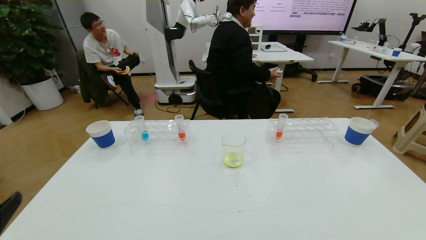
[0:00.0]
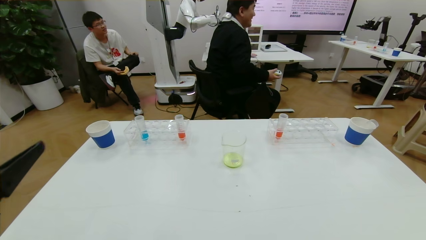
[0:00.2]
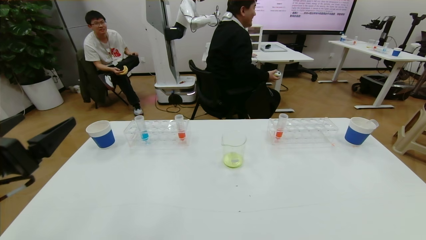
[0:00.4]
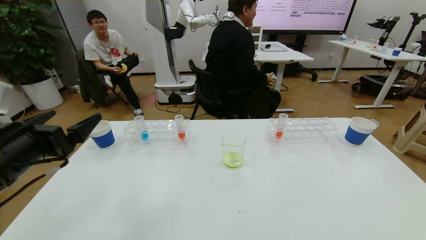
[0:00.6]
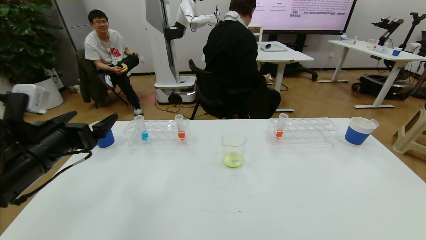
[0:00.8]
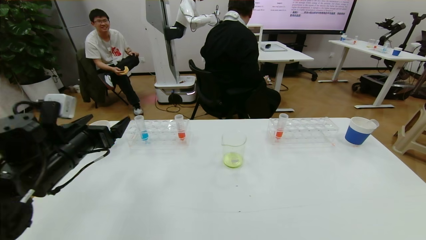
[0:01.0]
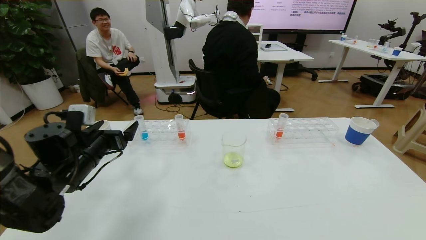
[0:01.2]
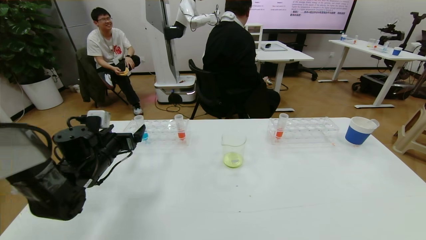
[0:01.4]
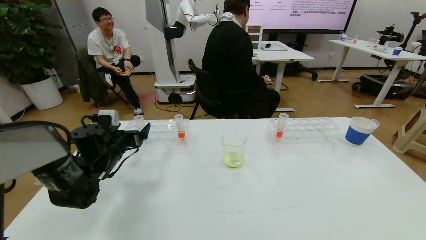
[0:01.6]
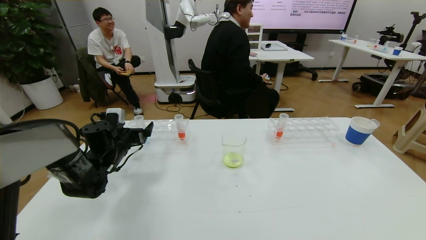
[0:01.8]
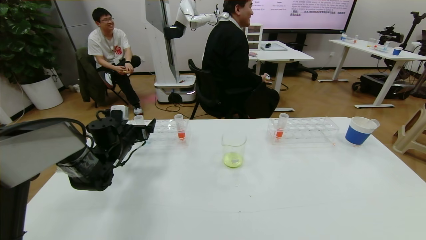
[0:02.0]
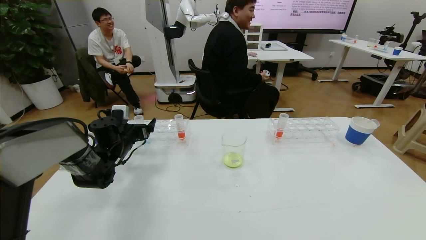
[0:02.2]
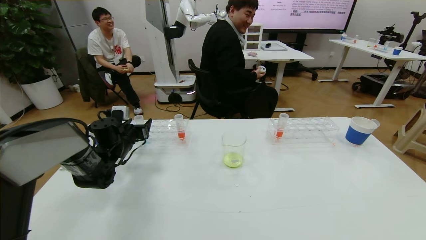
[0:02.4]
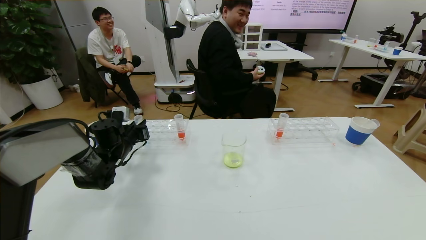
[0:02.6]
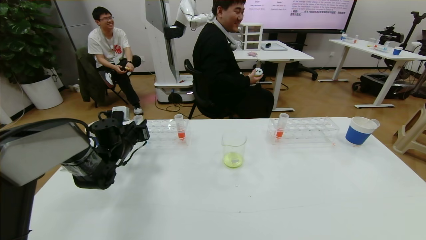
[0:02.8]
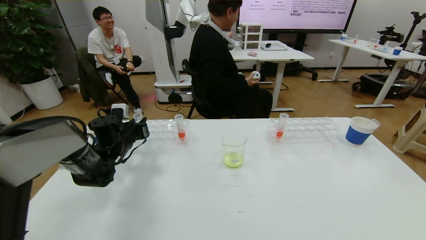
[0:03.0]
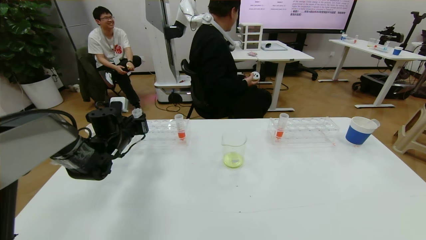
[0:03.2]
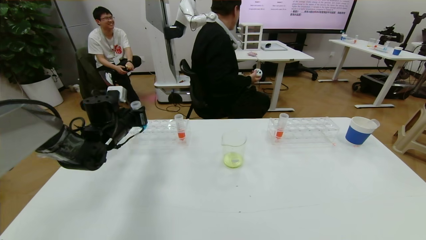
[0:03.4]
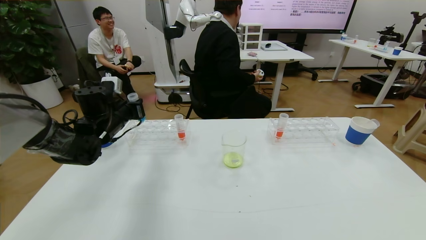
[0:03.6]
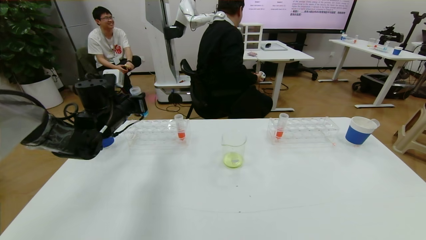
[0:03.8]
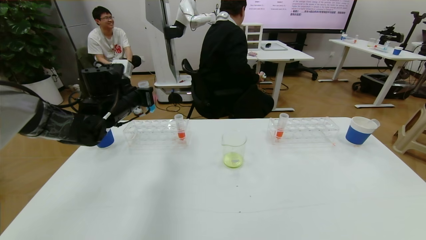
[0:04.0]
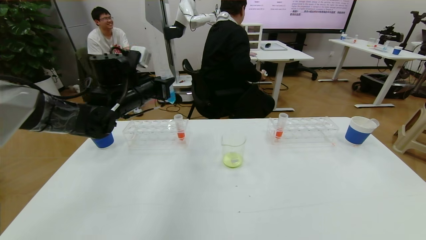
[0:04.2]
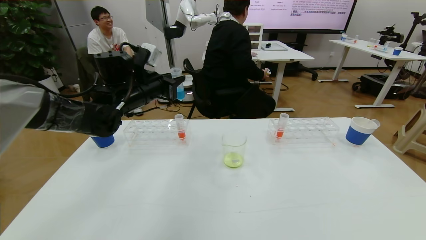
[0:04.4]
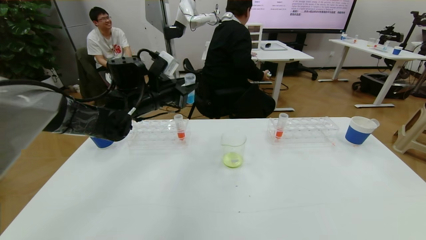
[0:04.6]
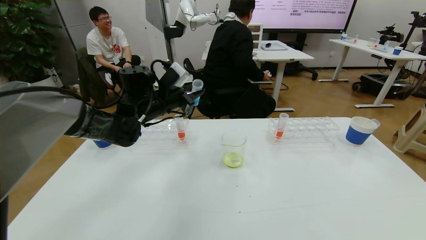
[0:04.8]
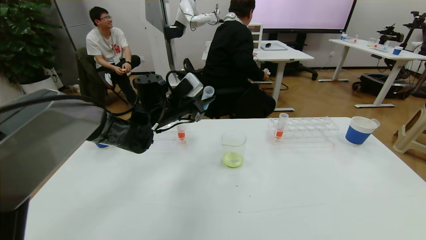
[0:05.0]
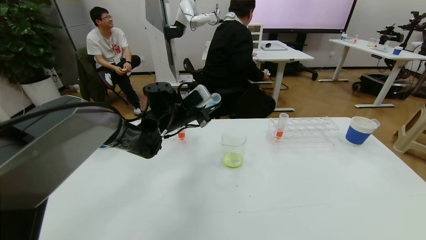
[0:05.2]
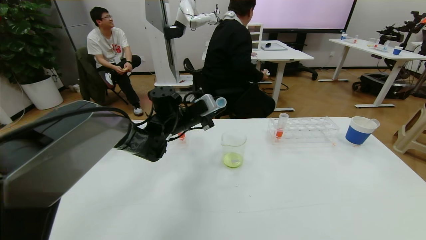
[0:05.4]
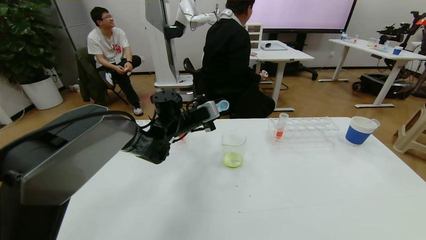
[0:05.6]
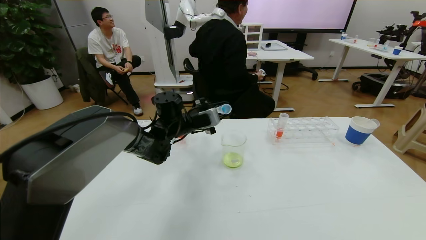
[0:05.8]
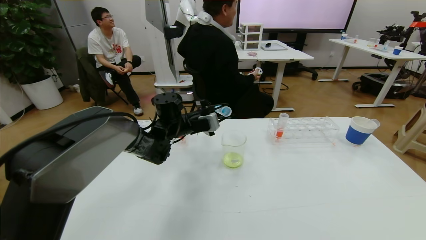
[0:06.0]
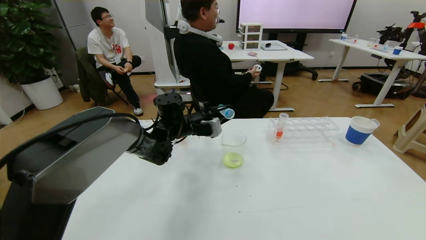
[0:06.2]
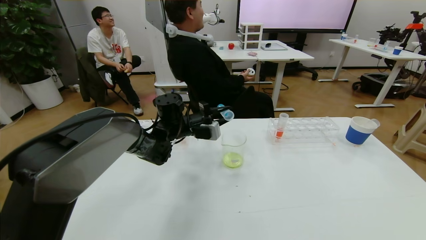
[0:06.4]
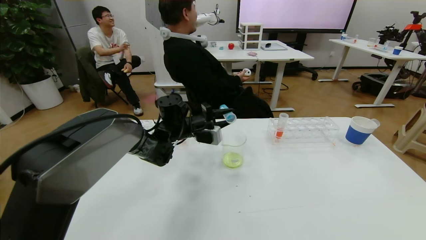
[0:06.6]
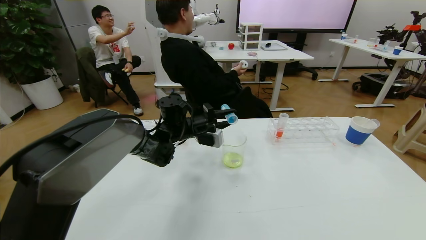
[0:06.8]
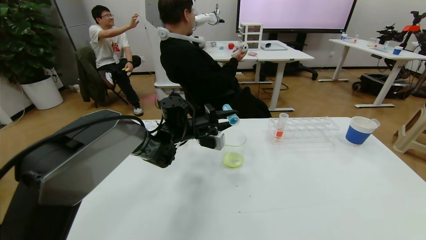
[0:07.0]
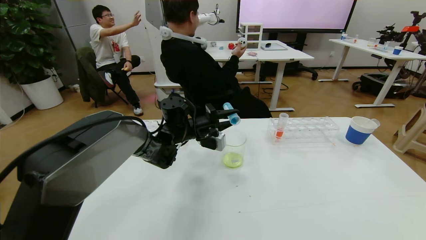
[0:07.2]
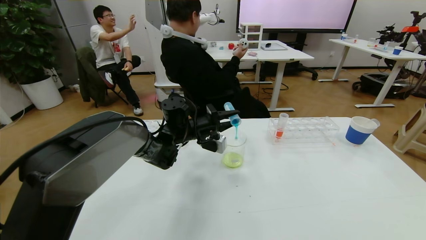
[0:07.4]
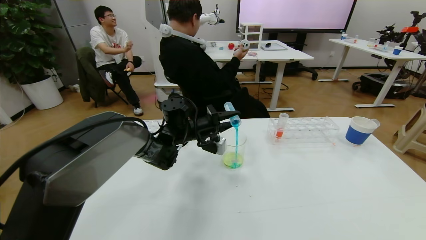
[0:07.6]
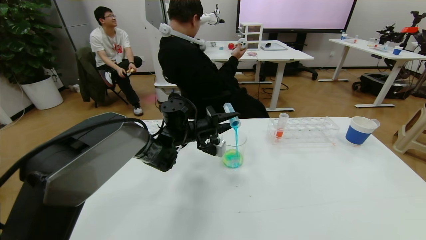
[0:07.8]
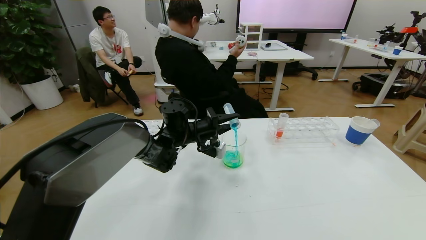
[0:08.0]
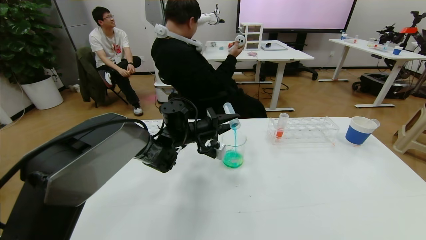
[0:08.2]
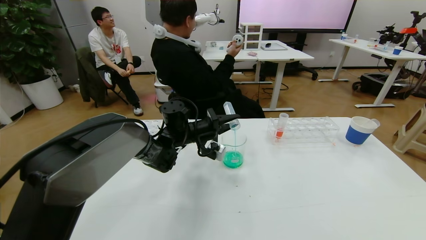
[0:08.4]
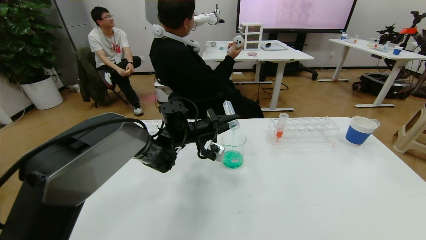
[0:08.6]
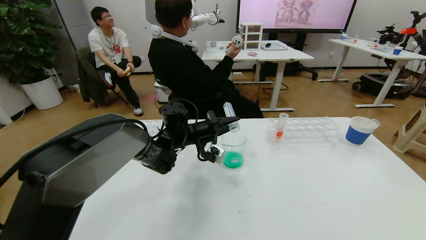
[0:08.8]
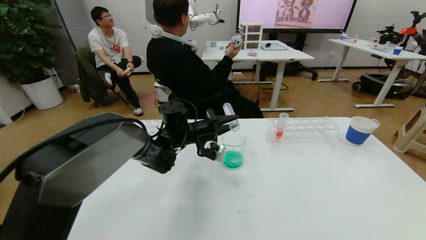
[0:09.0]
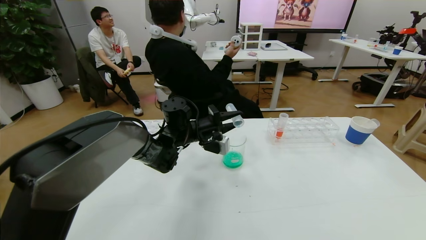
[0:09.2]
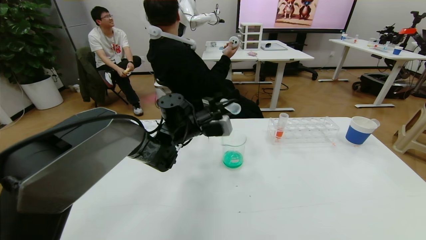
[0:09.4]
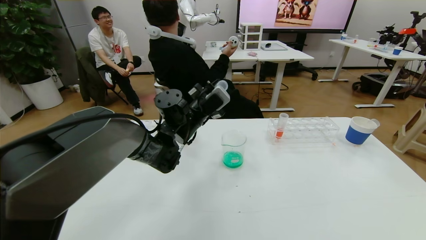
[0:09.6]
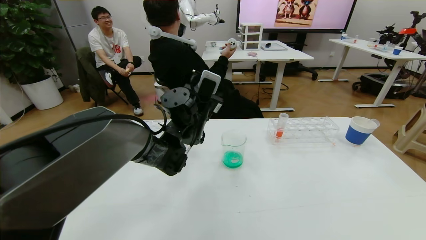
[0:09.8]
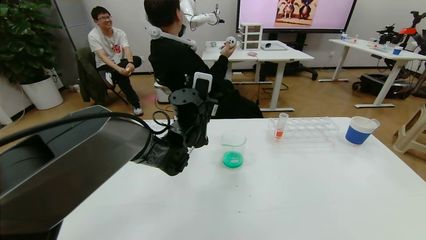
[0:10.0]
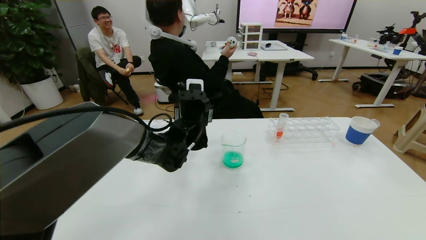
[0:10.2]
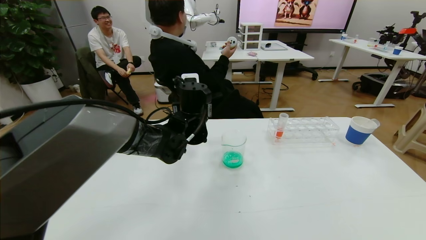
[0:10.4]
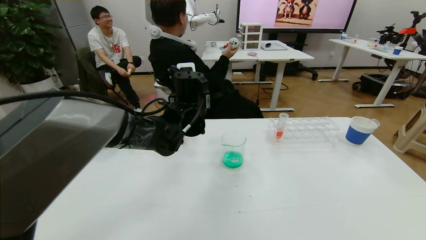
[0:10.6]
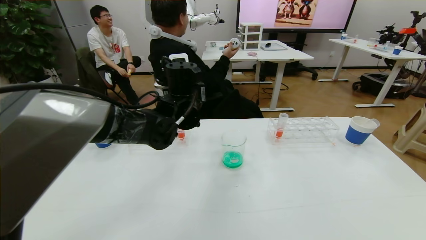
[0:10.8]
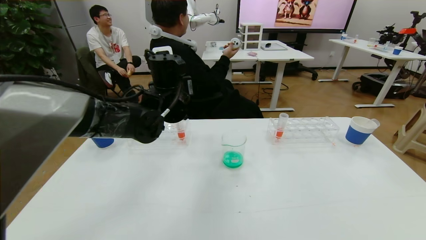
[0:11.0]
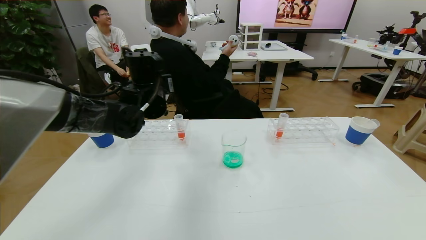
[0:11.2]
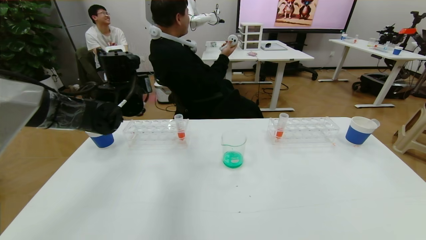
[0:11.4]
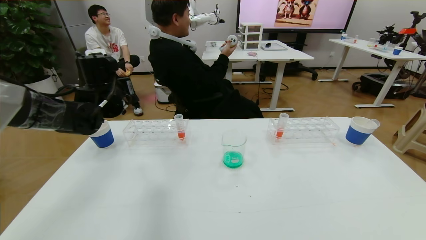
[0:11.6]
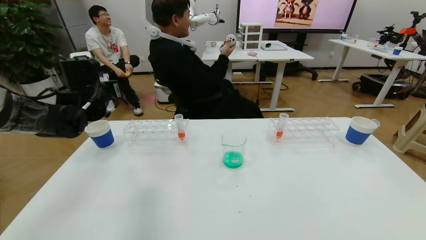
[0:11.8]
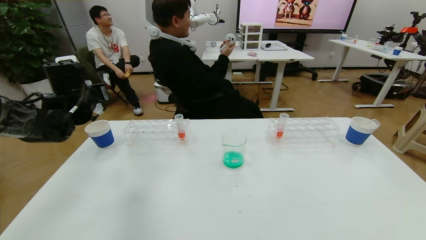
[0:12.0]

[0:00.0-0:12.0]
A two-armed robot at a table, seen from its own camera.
Task of the whole recording: pick up the test tube with yellow pigment and the test tube with blue pigment by grippers and pour them into the beaker.
0:00.0 to 0:01.6: The left gripper is displaced forward by about 35 cm.
0:01.6 to 0:03.0: The left gripper heads forward, covering about 5 cm, and closes its fingers.
0:03.0 to 0:04.4: The left gripper shifts approximately 20 cm upward and to the right.
0:04.4 to 0:06.0: The left gripper is displaced downward and to the right by about 15 cm.
0:07.6 to 0:09.0: The grippers stay close to where they were, moving slightly.
0:09.0 to 0:10.4: The left gripper heads upward, covering some 5 cm.
0:10.4 to 0:12.0: The left gripper heads to the left, covering about 25 cm.

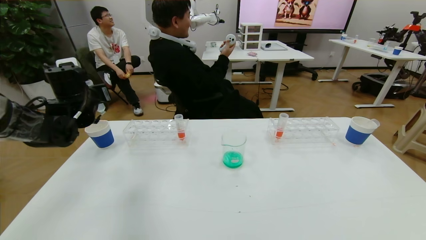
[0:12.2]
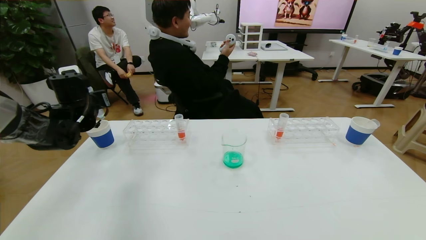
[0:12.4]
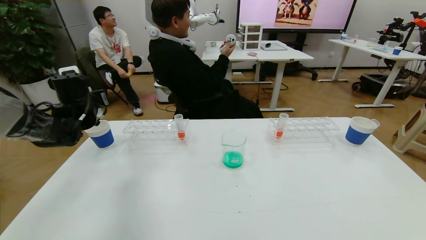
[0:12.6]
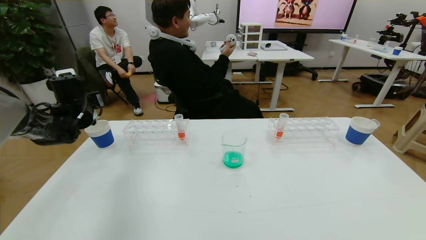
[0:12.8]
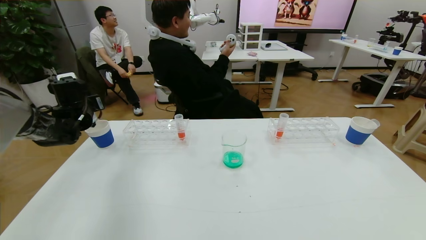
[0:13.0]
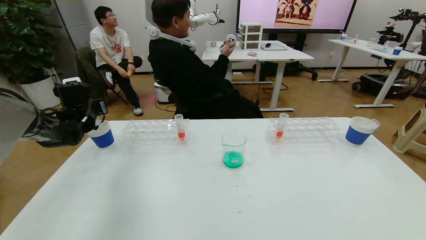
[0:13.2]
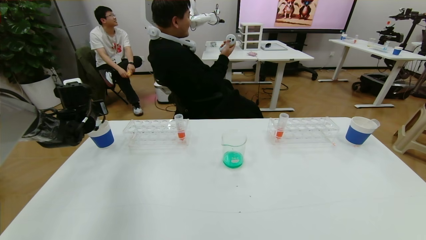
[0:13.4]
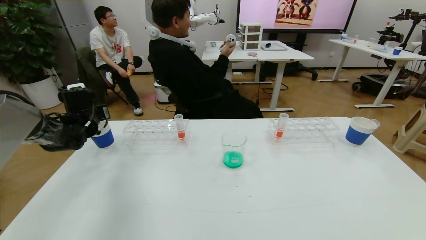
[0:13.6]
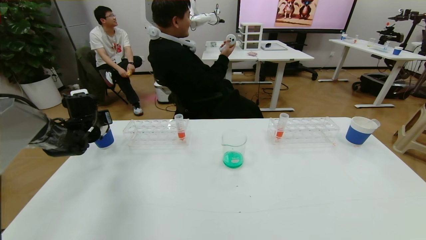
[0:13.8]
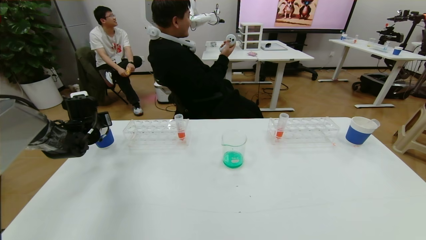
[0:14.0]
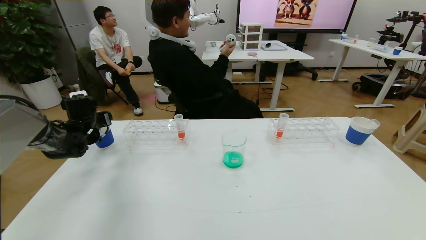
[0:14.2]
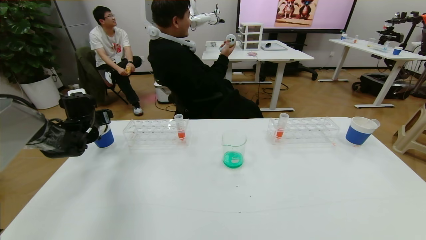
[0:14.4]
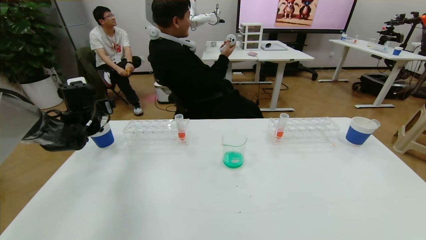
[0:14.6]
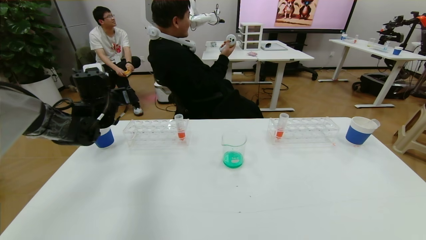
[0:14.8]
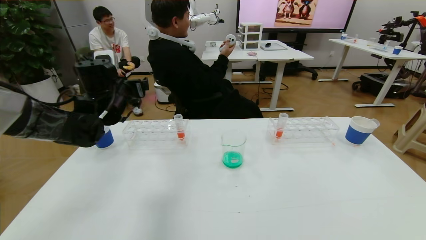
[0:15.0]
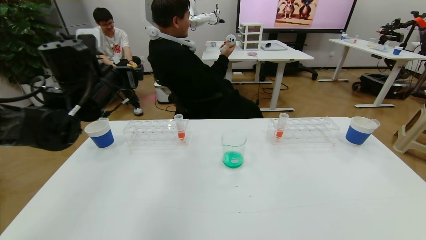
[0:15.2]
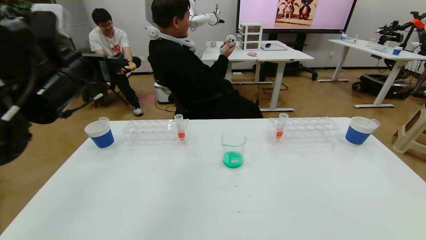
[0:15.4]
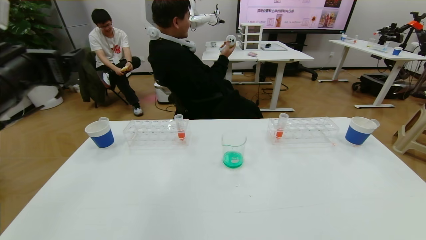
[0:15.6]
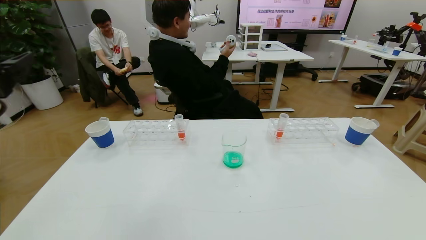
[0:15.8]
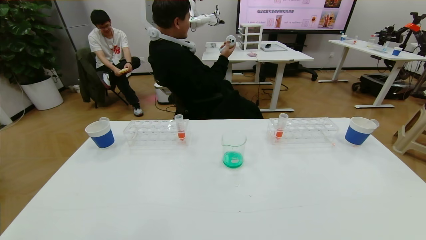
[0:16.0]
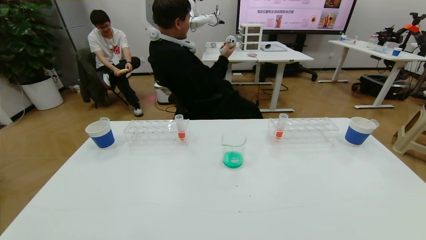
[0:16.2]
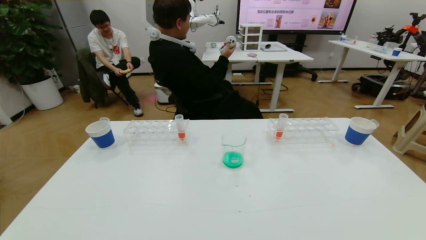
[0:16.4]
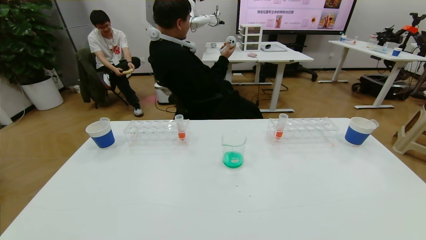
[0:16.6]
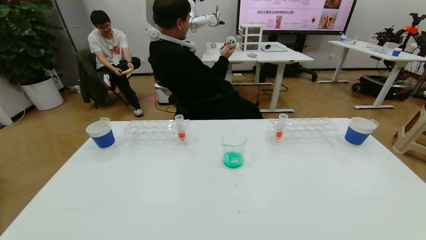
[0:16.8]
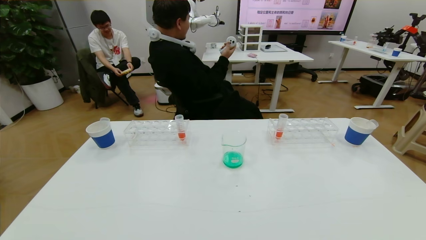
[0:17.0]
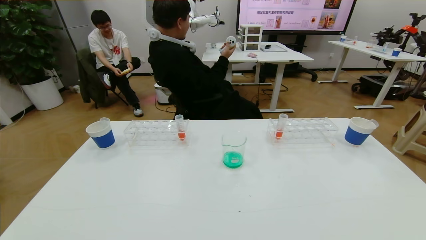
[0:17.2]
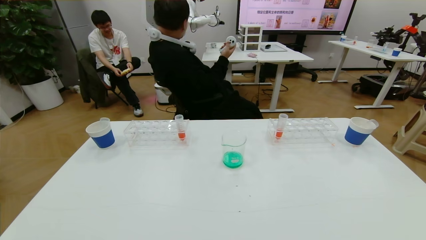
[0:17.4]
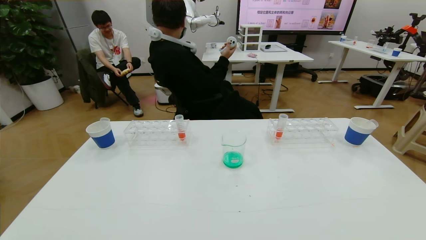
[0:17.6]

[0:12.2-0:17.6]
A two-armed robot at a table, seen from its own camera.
Task of the whole recording: pick up the test tube with yellow pigment and the test tube with blue pigment by grippers and pour them into the beaker.
Step, 0:12.2 to 0:17.6: Pour the blue reagent into the graduated cylinder and place the test tube into the paper cup.
0:12.2 to 0:13.6: The left gripper heads downward and to the left, covering about 10 cm.
0:13.6 to 0:15.0: The left gripper travels to the right and upward by roughly 15 cm, and opens its fingers.
0:15.0 to 0:16.2: The left gripper heads backward, covering approximately 35 cm.
0:16.2 to 0:17.6: The left gripper shifts about 20 cm downward.
